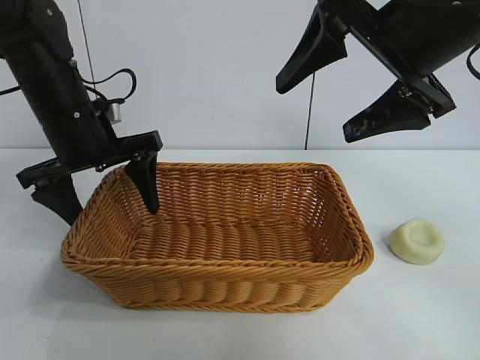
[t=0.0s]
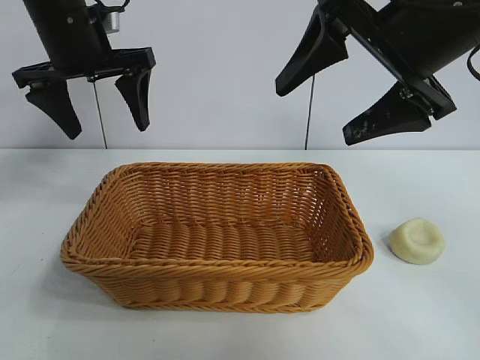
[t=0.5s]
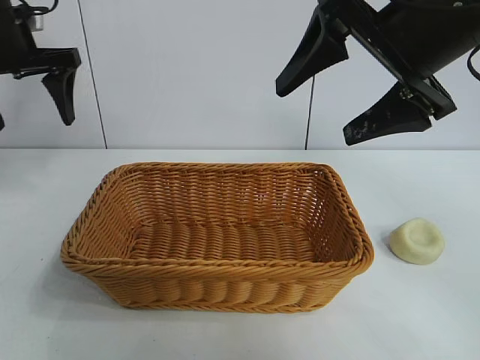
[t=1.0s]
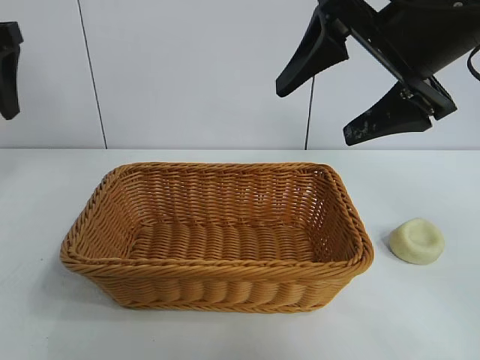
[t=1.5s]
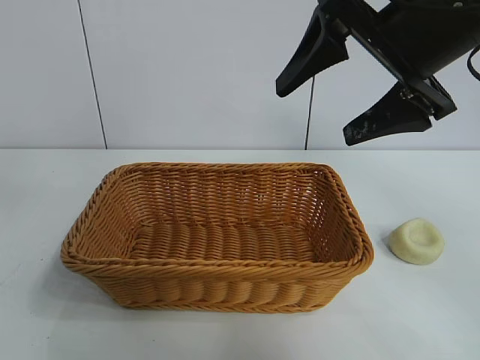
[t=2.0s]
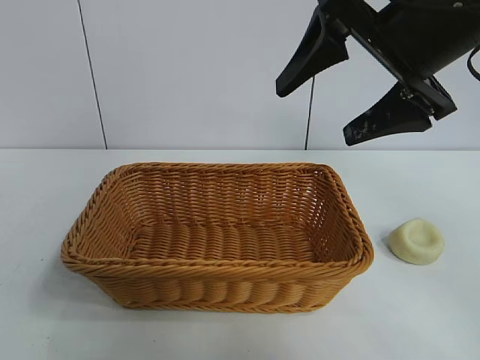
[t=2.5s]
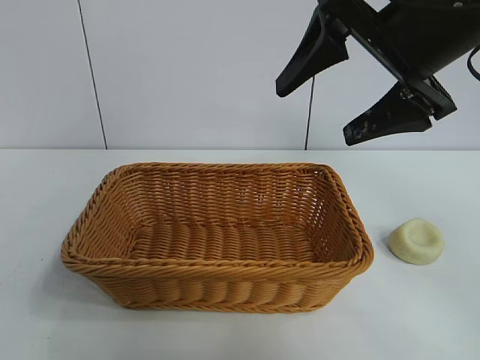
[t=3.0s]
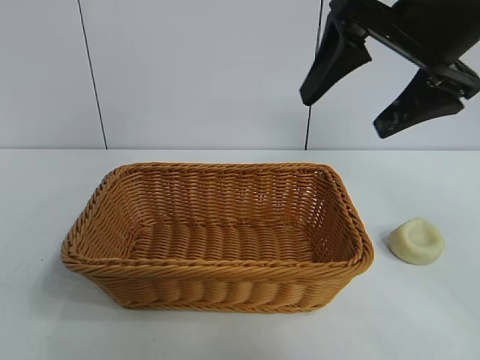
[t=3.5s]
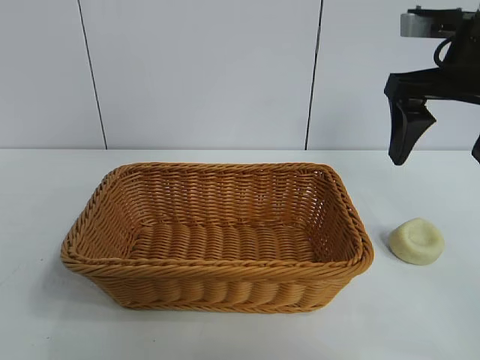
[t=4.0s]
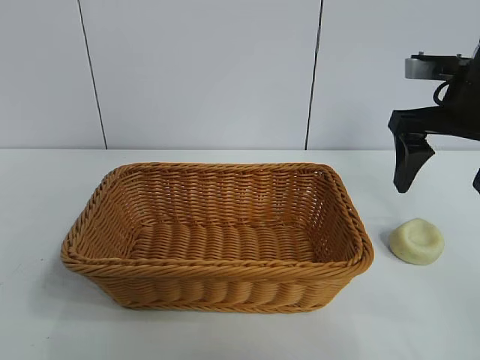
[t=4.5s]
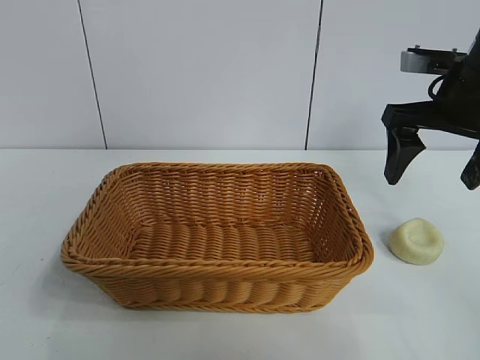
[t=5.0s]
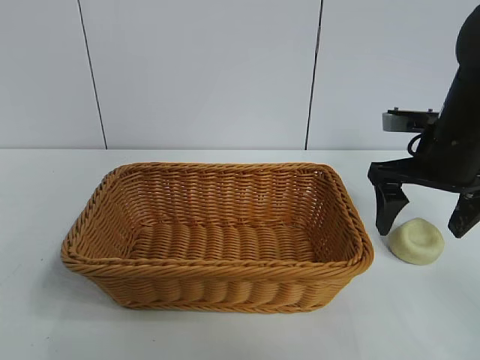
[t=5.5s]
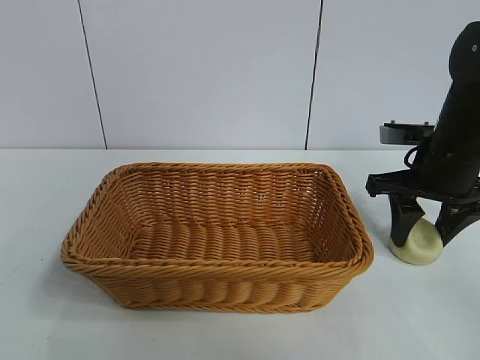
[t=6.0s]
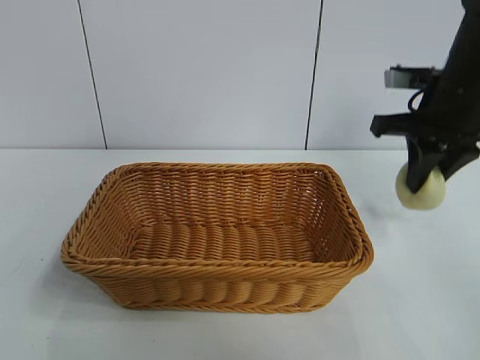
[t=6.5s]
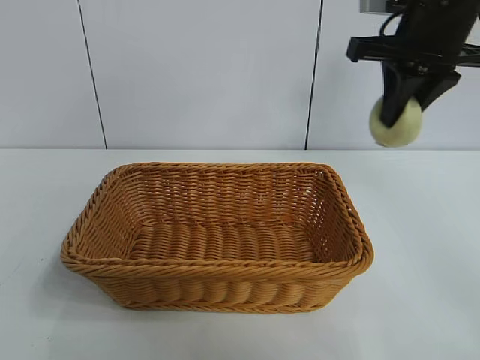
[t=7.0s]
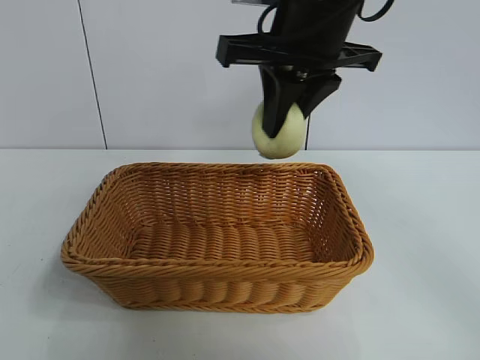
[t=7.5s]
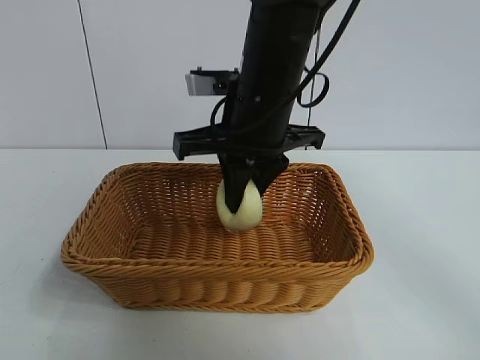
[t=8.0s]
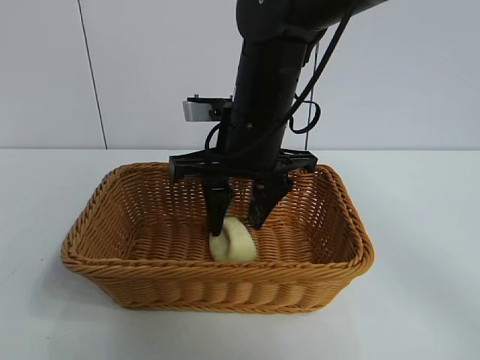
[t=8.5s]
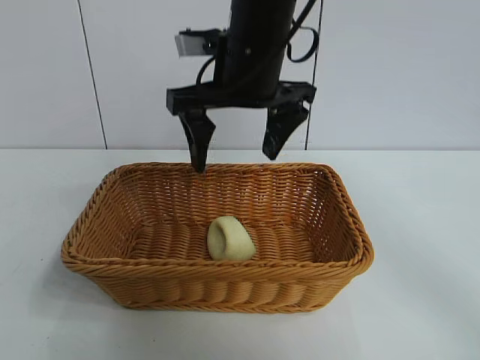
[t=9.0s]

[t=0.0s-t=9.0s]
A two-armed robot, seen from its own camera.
Task of the whole recording: pick up the egg yolk pastry and put it into the basket.
Step, t=0.5s to t=6.0s: Grasp egg yolk pastry with right gripper.
Step, t=6.5s to t=8.5s: Place the egg yolk pastry in the basket with right gripper.
